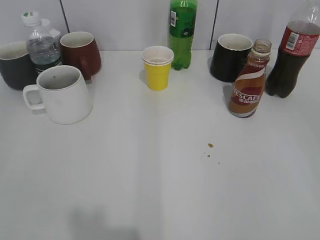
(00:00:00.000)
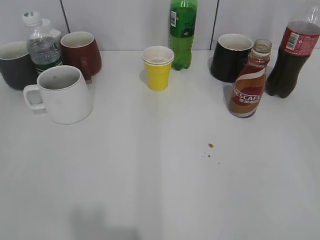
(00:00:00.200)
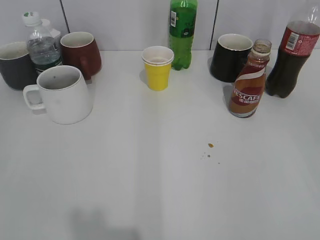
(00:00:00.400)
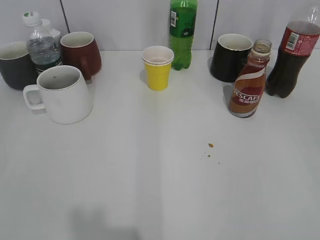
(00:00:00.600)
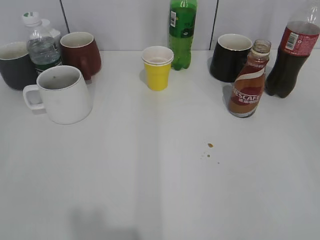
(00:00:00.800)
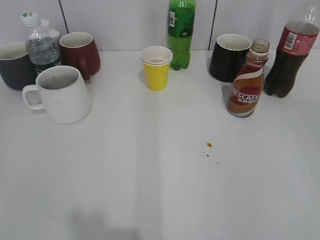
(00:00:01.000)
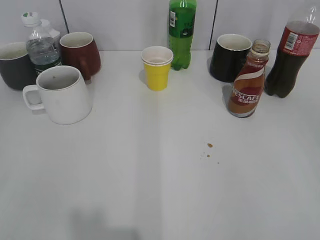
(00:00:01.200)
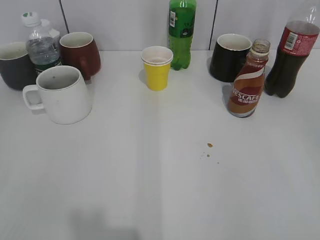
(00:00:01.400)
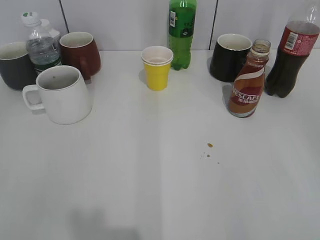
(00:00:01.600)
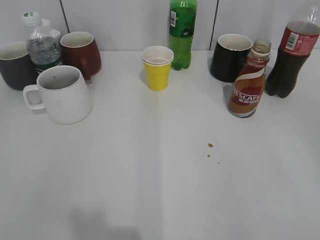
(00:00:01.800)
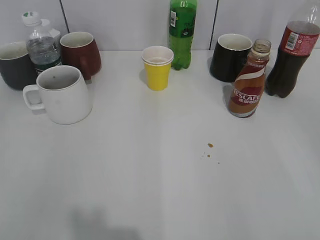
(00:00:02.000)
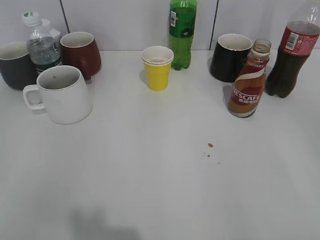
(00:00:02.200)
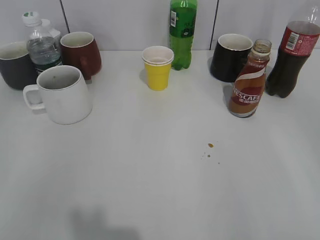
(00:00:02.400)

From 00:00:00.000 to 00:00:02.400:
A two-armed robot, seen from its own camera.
From 00:00:00.000 to 00:00:02.400: The grippers make only small movements.
